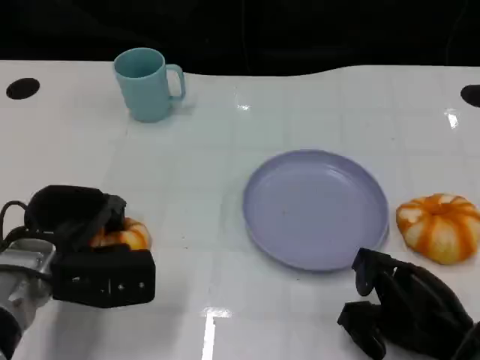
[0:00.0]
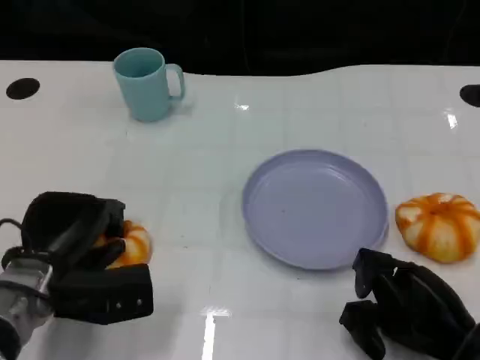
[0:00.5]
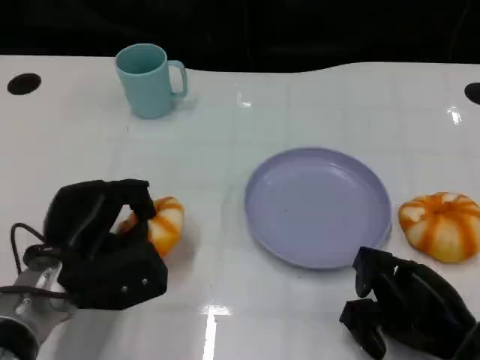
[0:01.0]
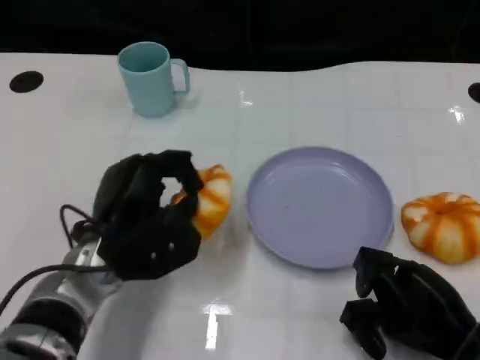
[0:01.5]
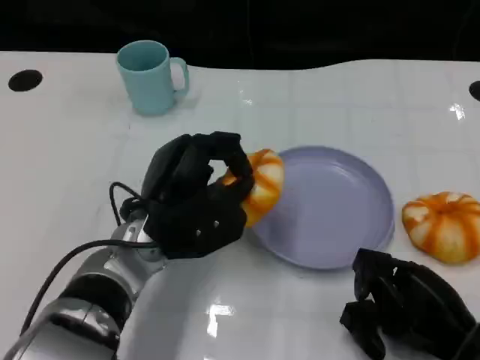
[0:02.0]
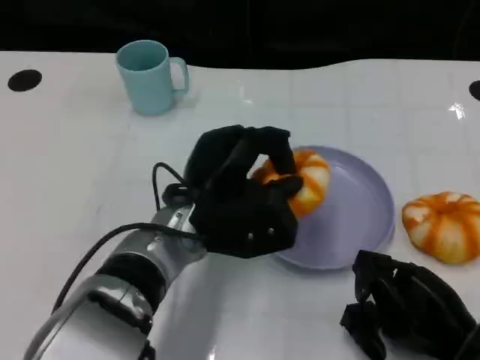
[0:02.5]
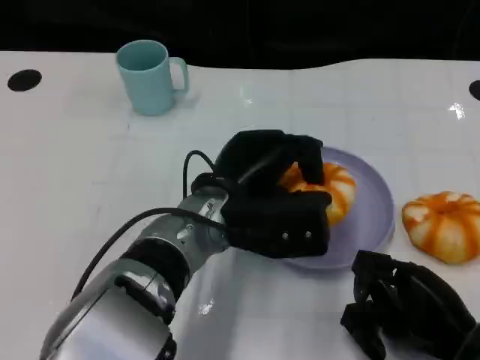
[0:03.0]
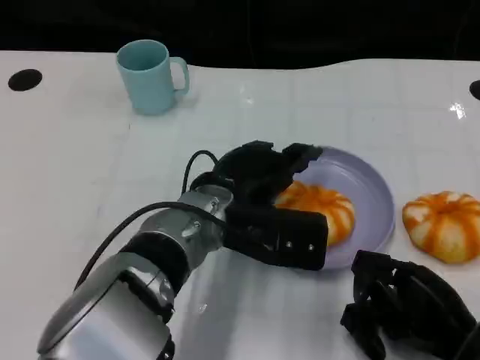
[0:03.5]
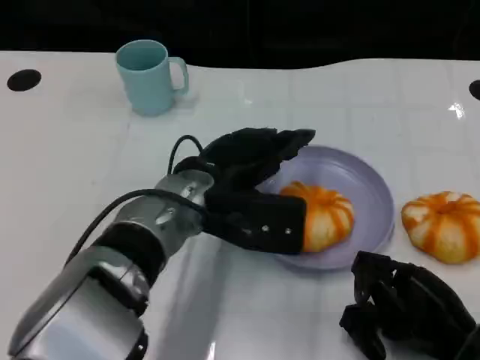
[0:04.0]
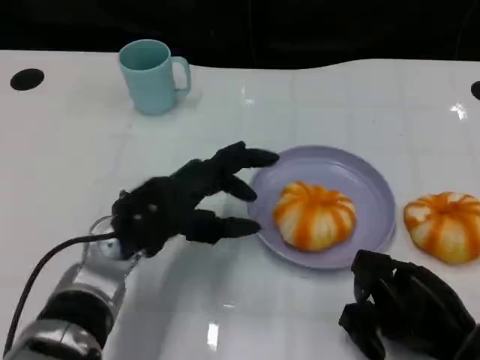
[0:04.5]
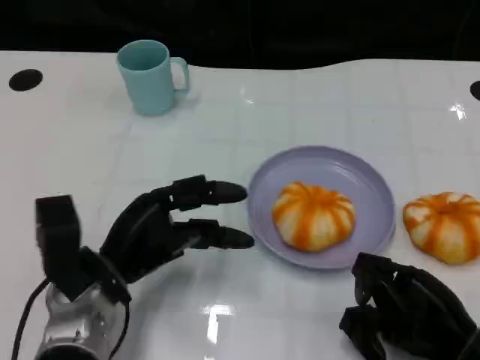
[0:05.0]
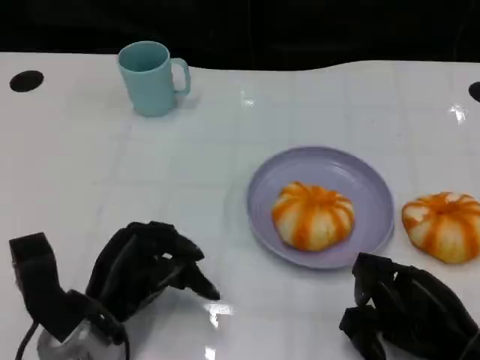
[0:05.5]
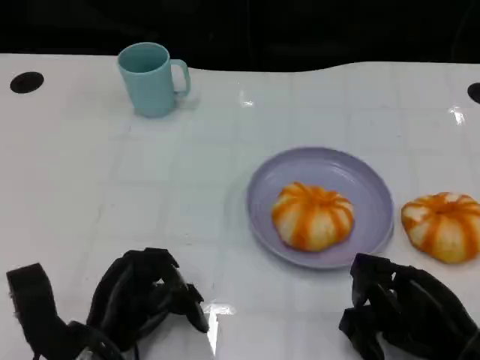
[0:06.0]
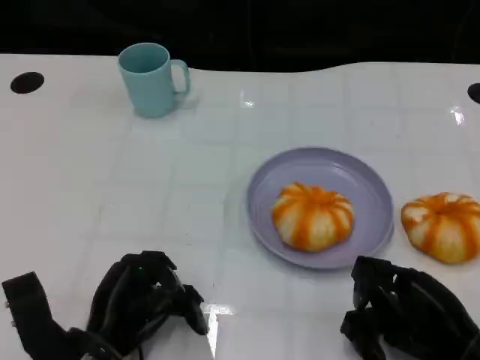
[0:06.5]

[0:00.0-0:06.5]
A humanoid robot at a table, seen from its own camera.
Task of the whole recording: Grasp the bread from the table and place it into the plate.
0:00.0 to 0:02.0: The left hand heads to the right, covering about 10 cm.
0:04.5 to 0:06.5: The left hand moves backward and downward, some 10 cm.

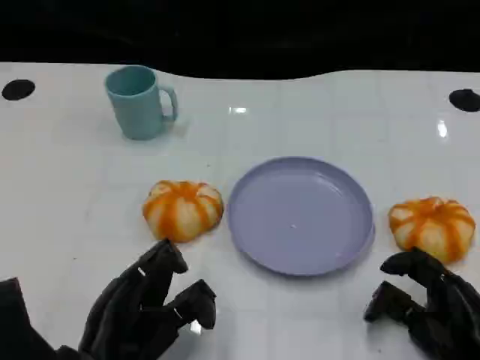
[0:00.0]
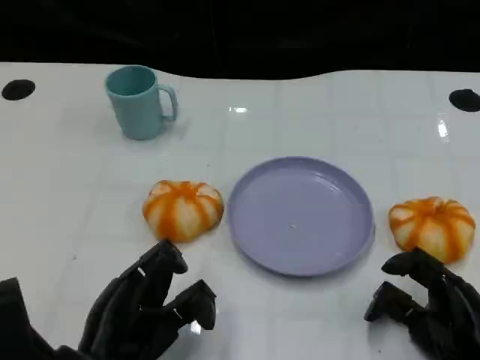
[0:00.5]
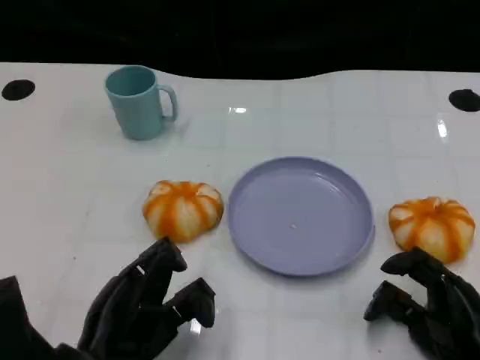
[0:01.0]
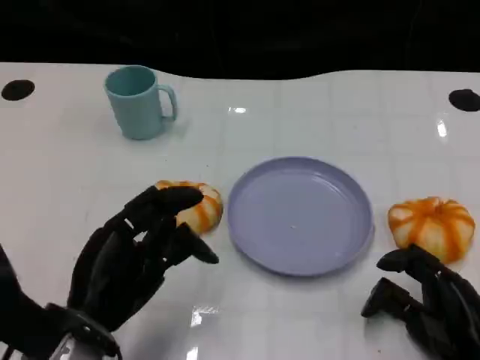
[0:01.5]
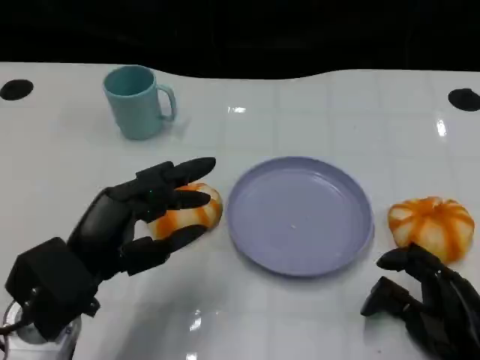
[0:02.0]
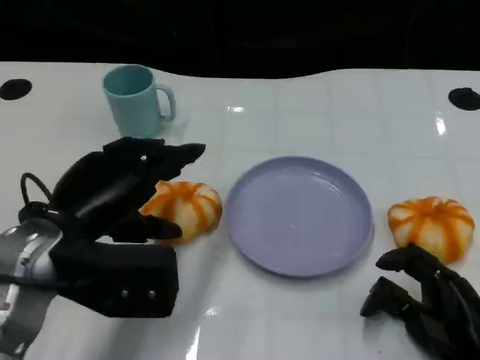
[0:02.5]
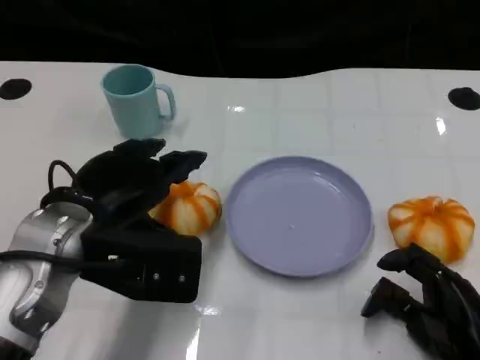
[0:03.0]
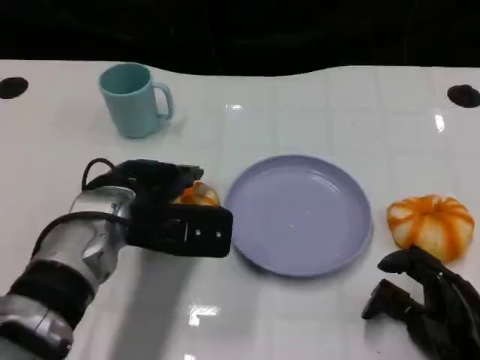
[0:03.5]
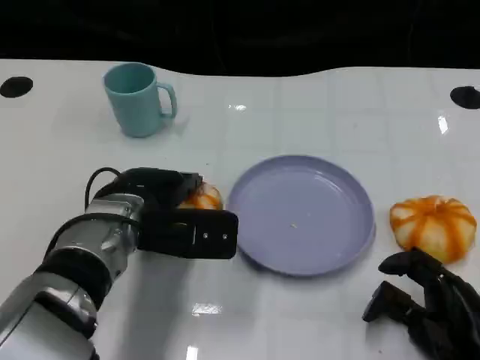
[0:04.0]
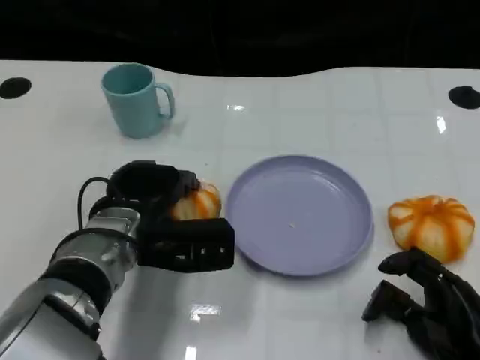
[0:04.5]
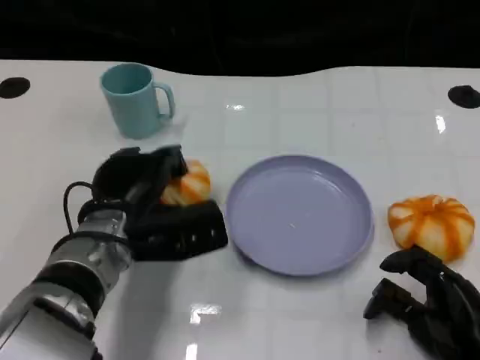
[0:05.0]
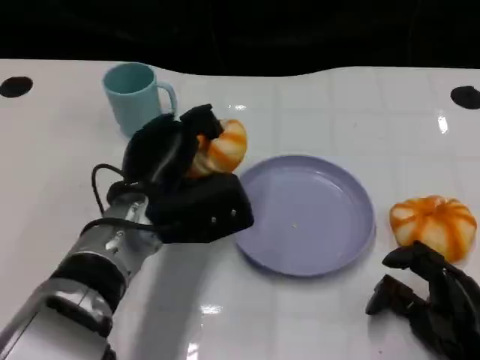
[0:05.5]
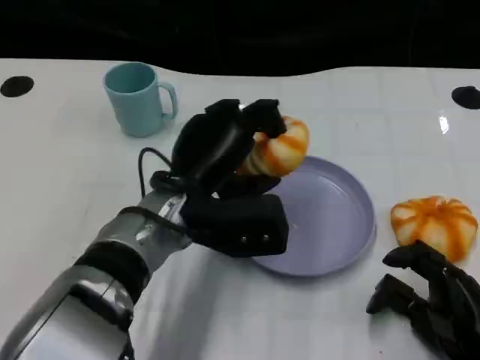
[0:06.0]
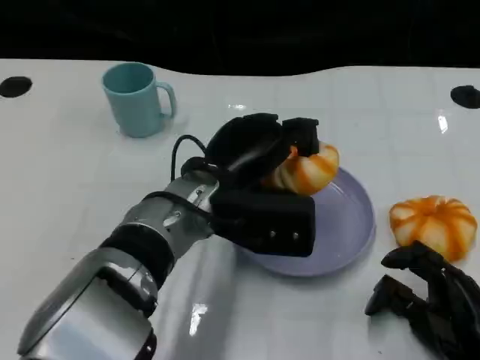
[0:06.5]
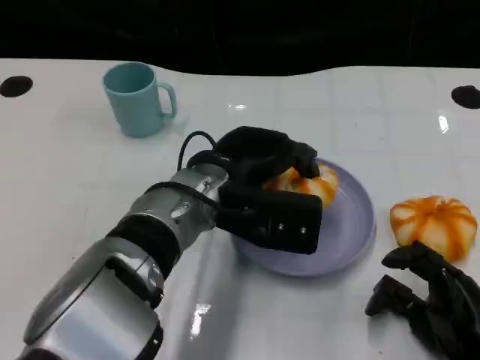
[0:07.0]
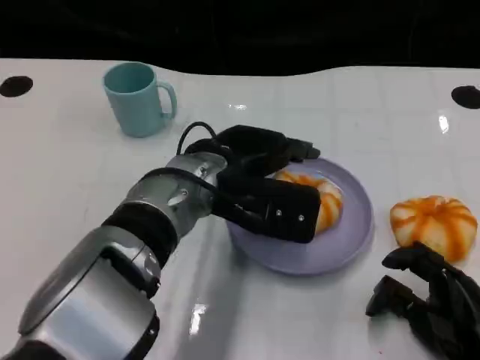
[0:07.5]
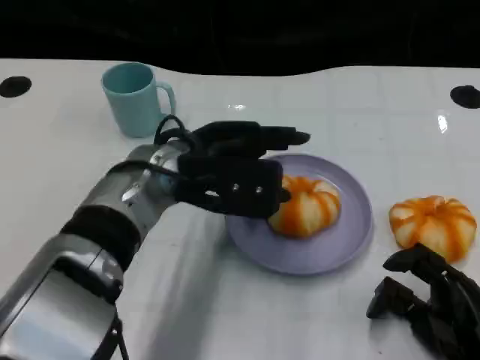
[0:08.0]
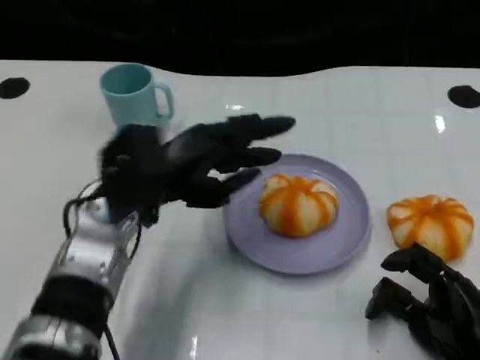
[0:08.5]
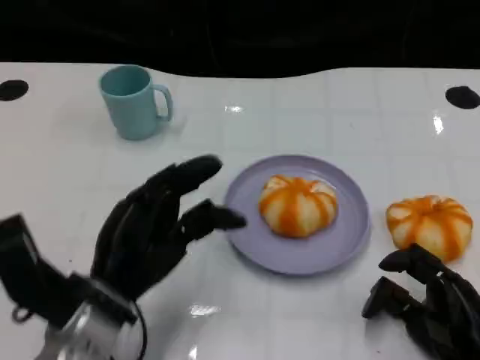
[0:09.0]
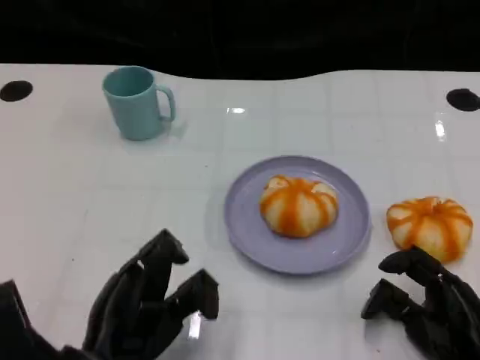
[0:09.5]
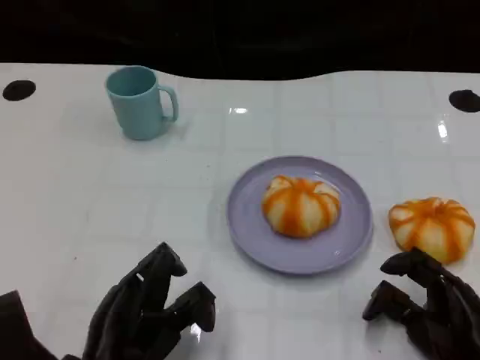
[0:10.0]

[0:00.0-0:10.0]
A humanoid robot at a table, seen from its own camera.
Task of the whole recording: Grasp the bread from the table and place it into the plate.
0:00.0 to 0:02.0: The left hand heads upward, covering about 5 cm.
0:02.0 to 0:04.0: The left hand heads forward and to the right, covering some 10 cm.
0:04.0 to 0:06.0: The left hand is displaced to the right by roughly 5 cm.
0:08.0 to 0:10.0: The left hand shifts about 20 cm backward, downward and to the left.

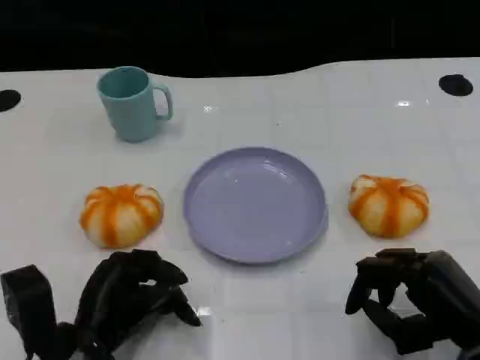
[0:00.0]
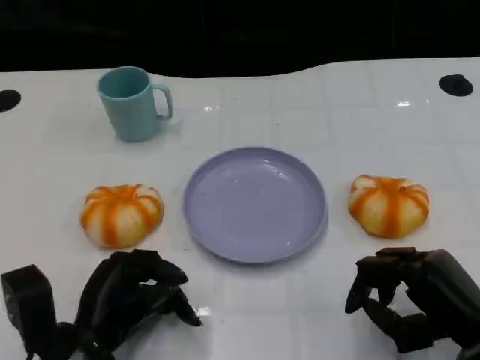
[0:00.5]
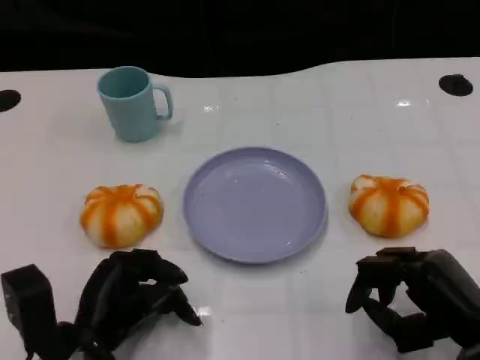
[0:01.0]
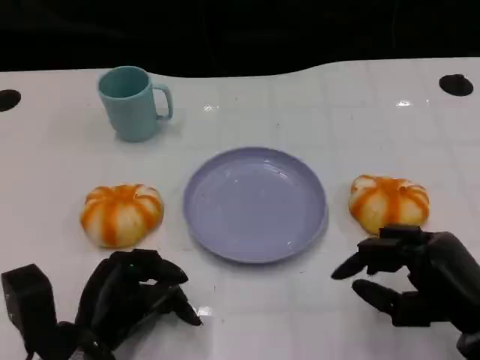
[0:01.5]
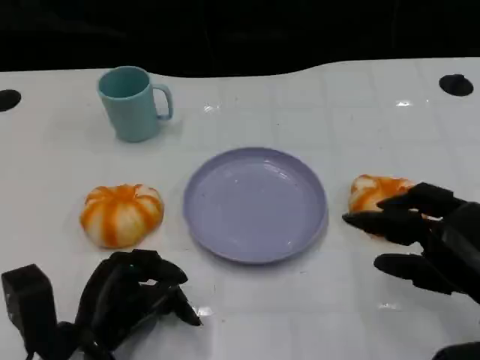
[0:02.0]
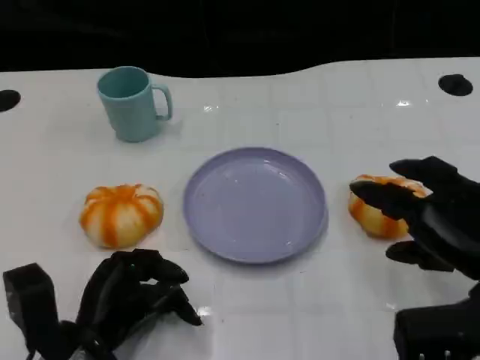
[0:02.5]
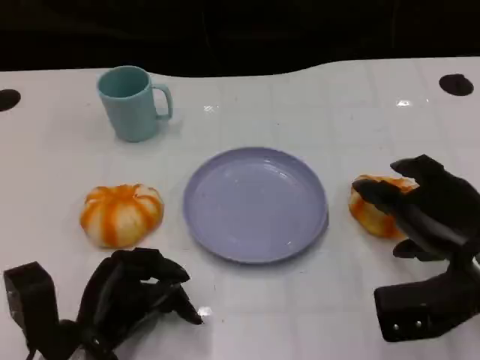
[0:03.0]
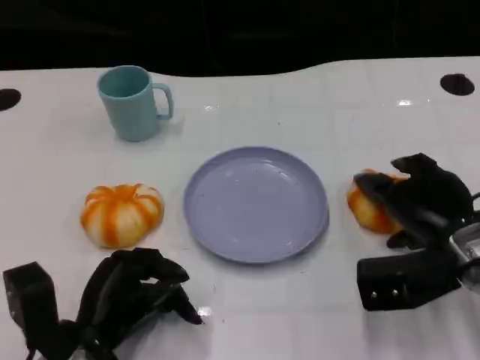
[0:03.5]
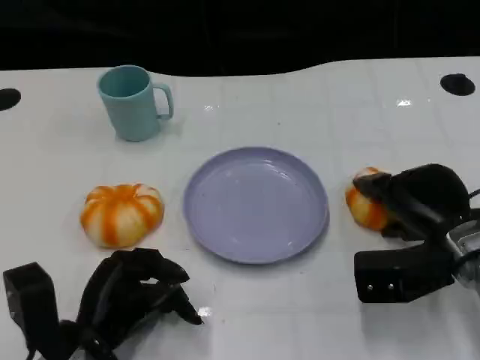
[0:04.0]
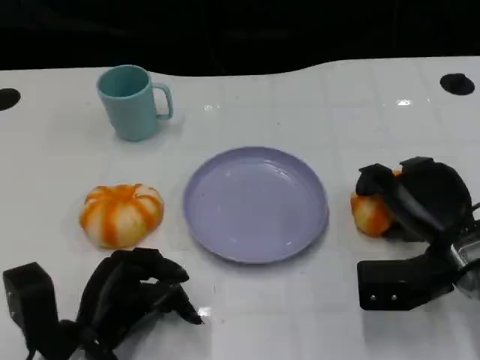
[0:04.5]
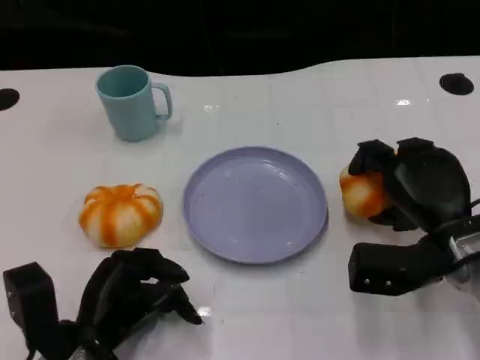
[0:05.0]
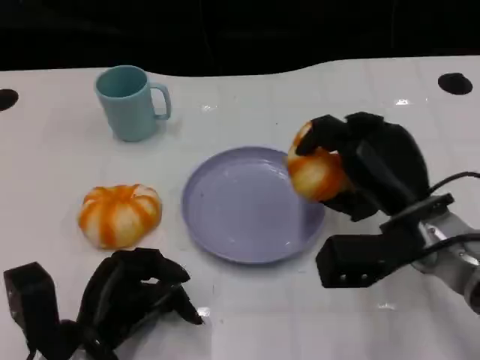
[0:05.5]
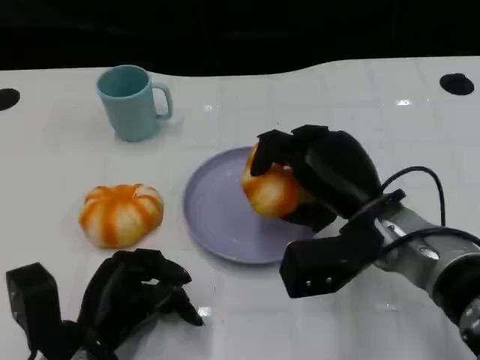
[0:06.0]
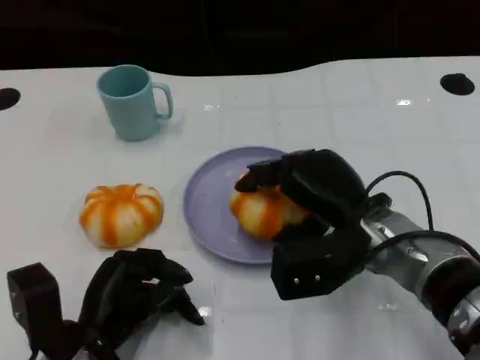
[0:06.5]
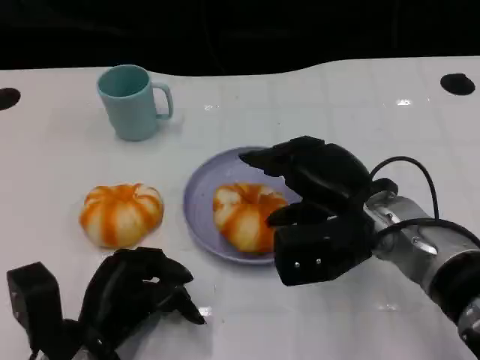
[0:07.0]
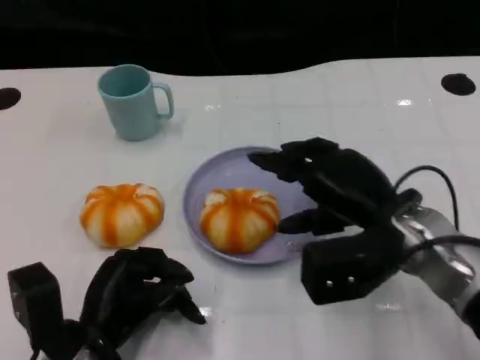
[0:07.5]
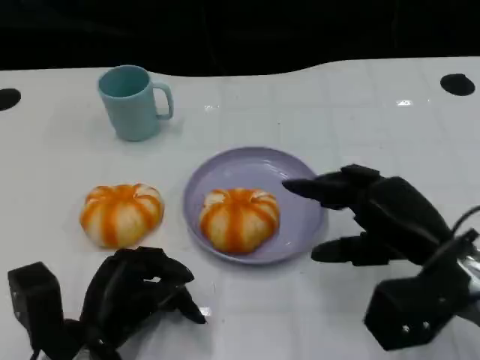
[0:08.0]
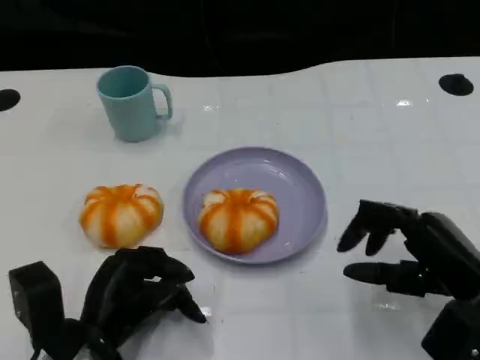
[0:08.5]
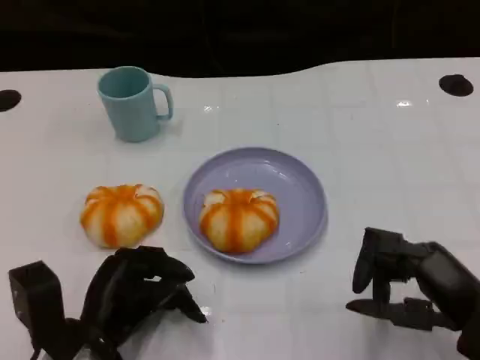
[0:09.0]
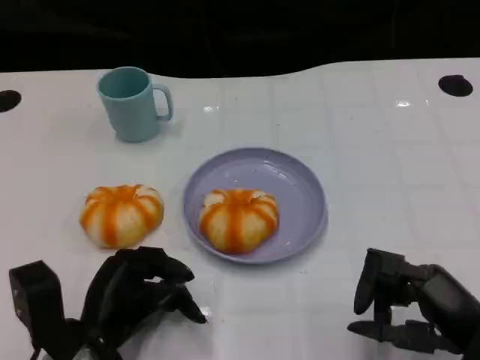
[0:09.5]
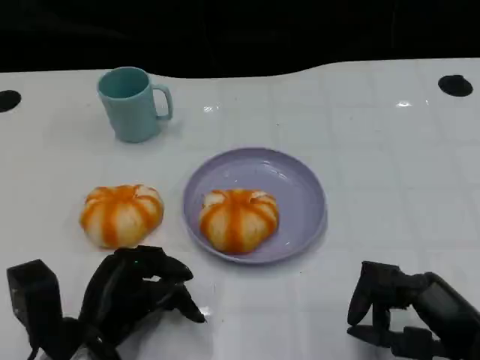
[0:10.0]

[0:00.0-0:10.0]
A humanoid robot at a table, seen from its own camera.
Task of the whole recording: Grasp the bread from the table and place it into the plate.
0:00.0 to 0:02.0: The right hand is displaced upward by roughly 5 cm.
0:02.0 to 0:04.0: The right hand shifts about 10 cm forward.
0:04.0 to 0:06.0: The right hand moves to the left, approximately 10 cm.
0:06.0 to 0:08.0: The right hand is displaced to the right by about 10 cm.
0:08.0 to 0:10.0: The right hand travels backward by about 5 cm.
